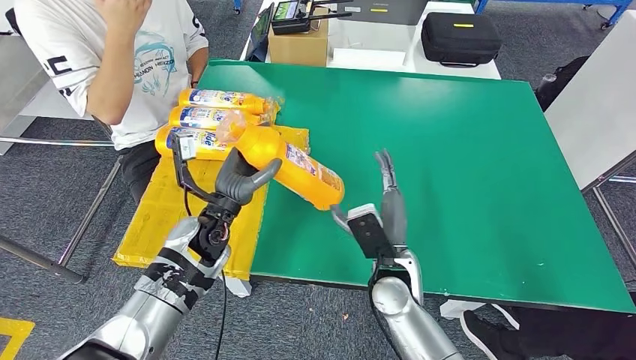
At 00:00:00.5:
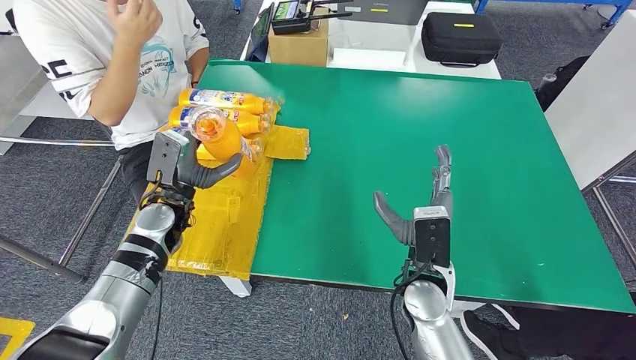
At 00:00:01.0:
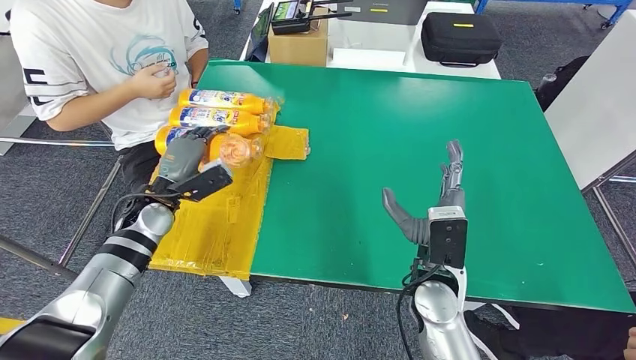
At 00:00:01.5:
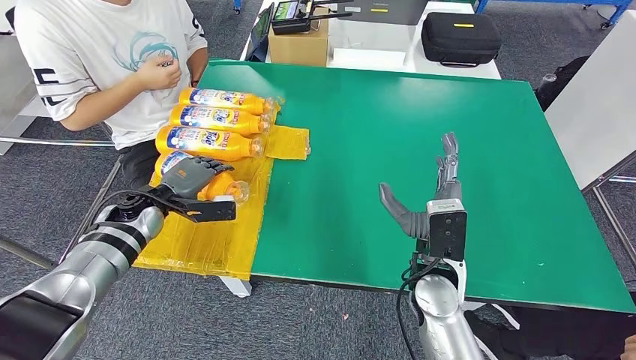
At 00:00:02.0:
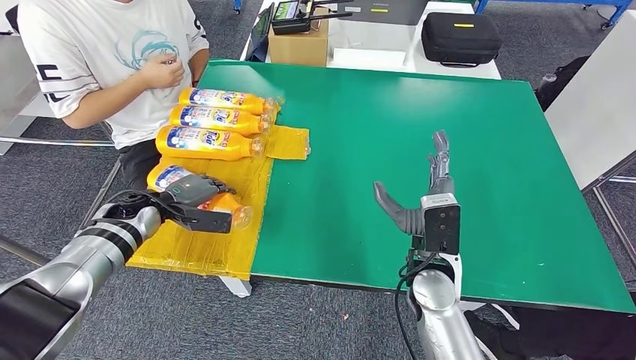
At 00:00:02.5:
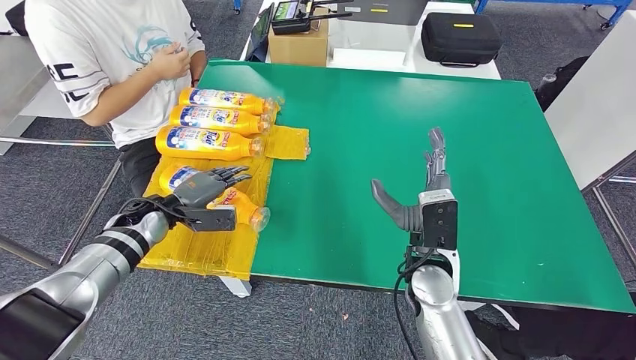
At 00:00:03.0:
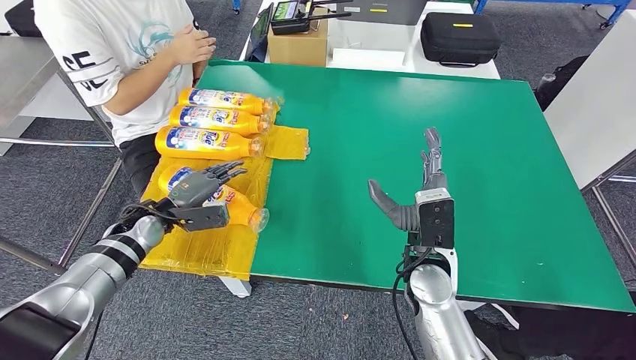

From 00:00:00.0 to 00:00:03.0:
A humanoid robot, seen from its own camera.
Step, from 00:00:00.0 to 00:00:03.0: Flip the fast-moving consumer goods bottle to the front side.
